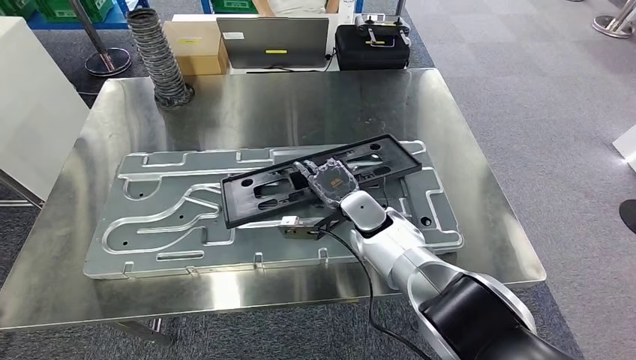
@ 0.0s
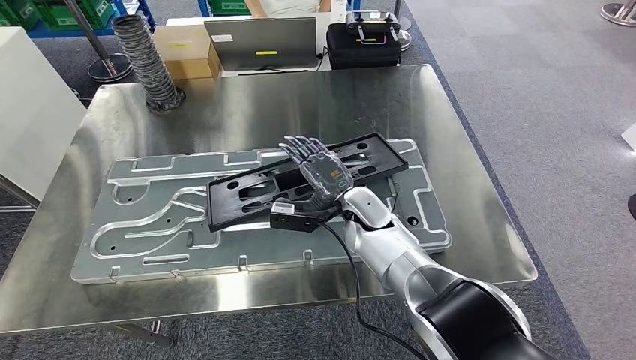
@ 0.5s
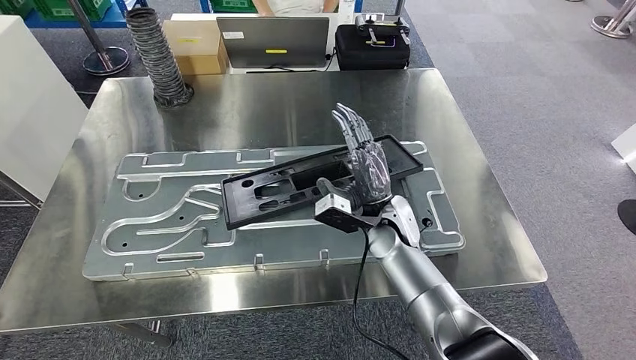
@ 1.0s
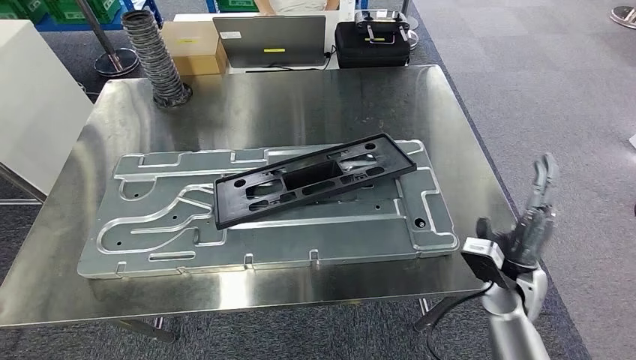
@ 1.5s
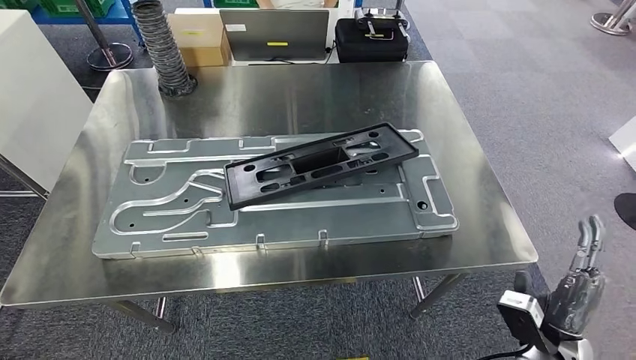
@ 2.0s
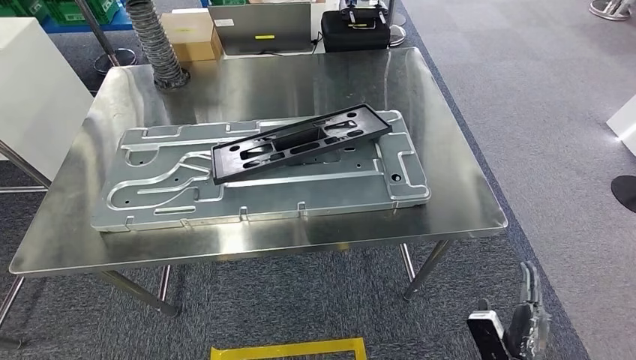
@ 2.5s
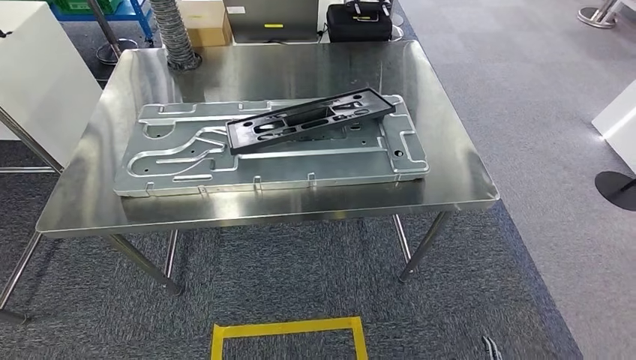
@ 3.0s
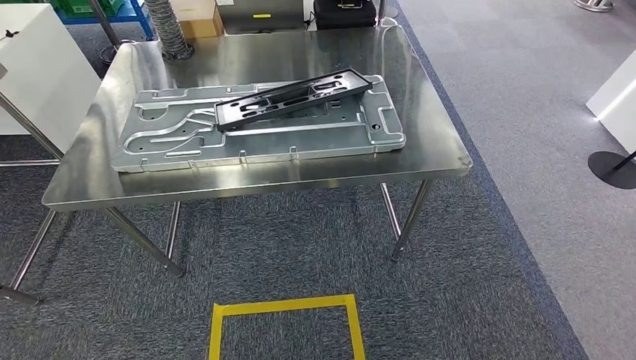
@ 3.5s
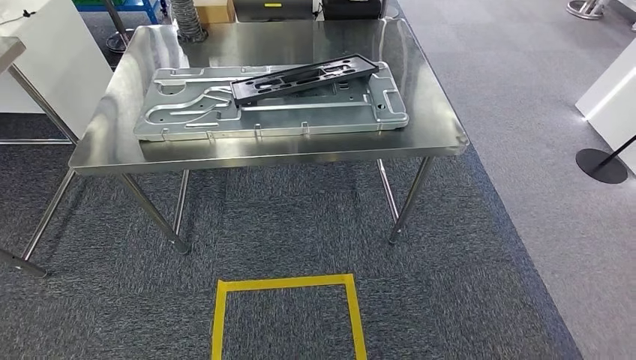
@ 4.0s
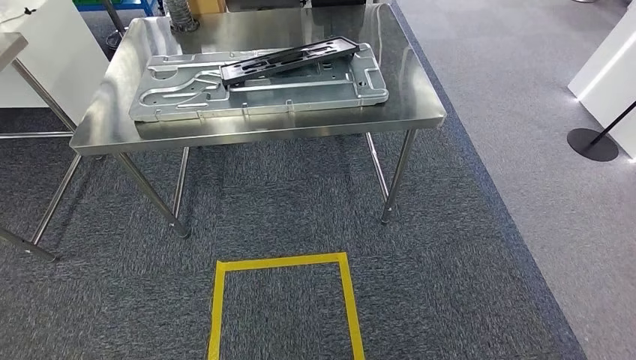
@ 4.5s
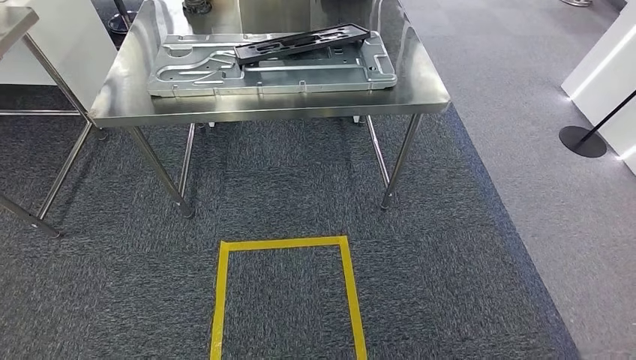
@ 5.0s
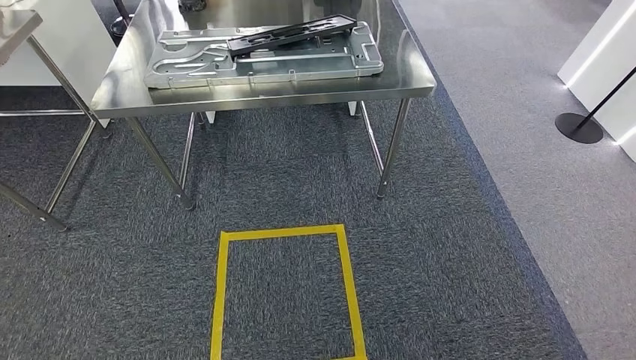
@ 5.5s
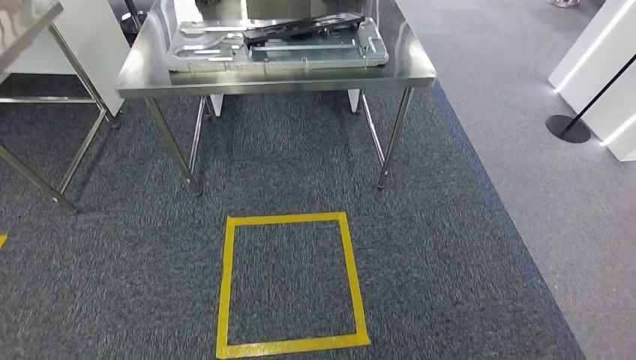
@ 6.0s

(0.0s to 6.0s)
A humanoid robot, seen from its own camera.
Step, 2.0s - 6.0s: Move to the initial position of the shelf.
